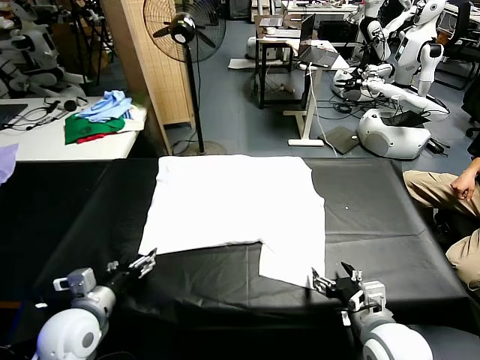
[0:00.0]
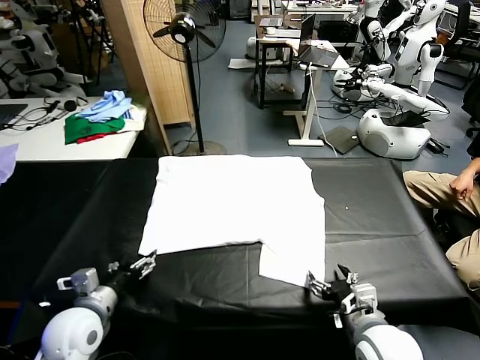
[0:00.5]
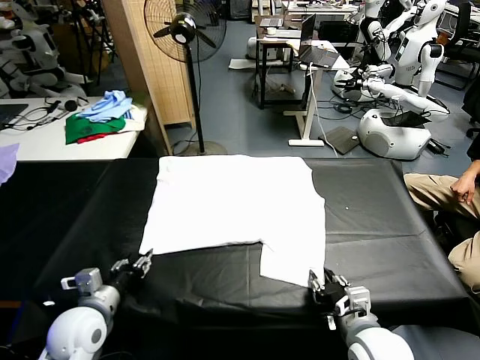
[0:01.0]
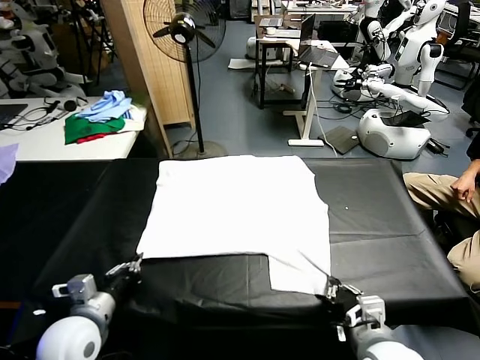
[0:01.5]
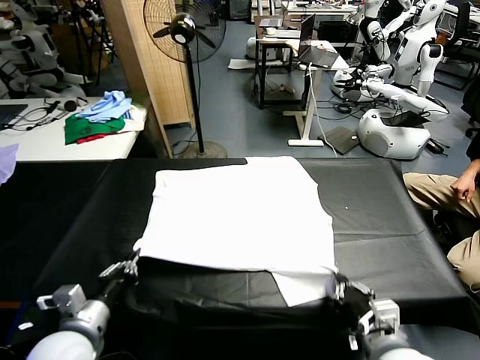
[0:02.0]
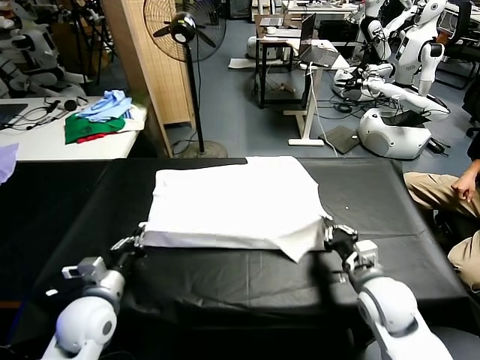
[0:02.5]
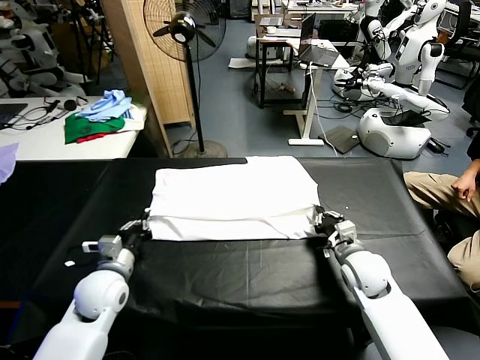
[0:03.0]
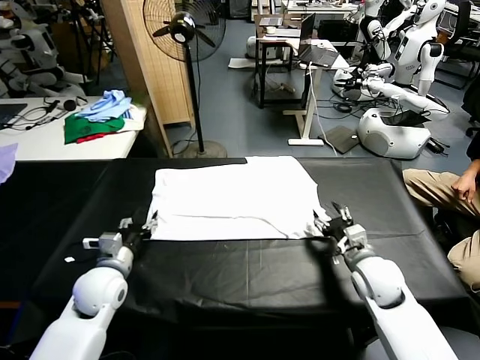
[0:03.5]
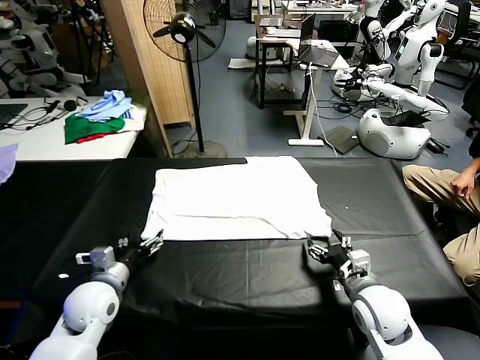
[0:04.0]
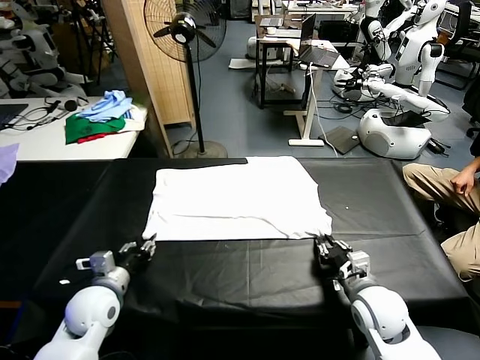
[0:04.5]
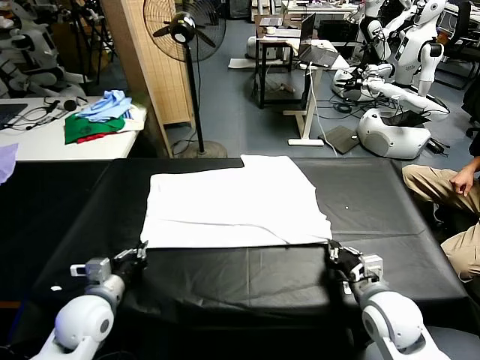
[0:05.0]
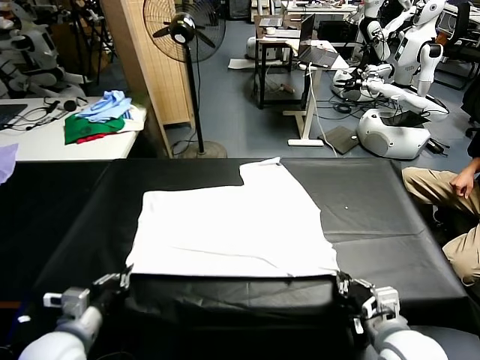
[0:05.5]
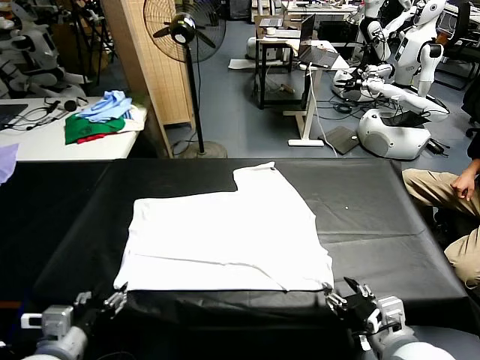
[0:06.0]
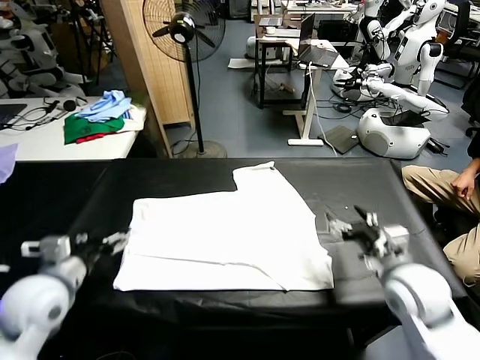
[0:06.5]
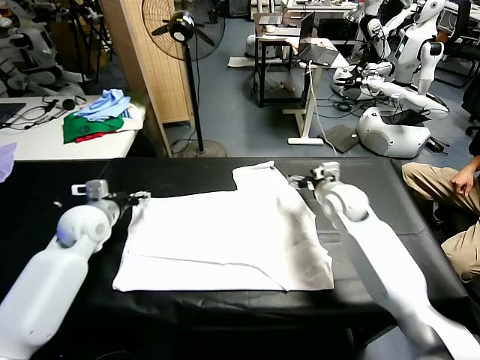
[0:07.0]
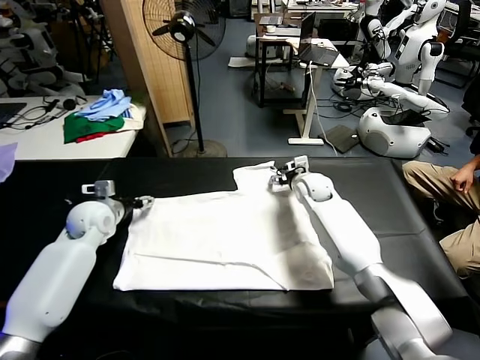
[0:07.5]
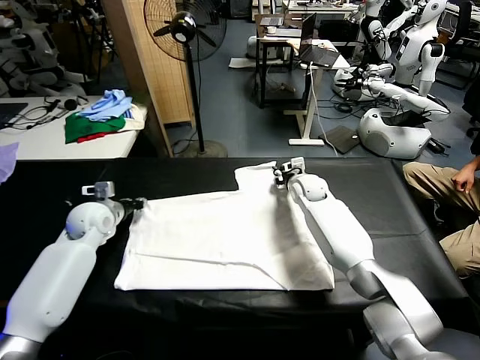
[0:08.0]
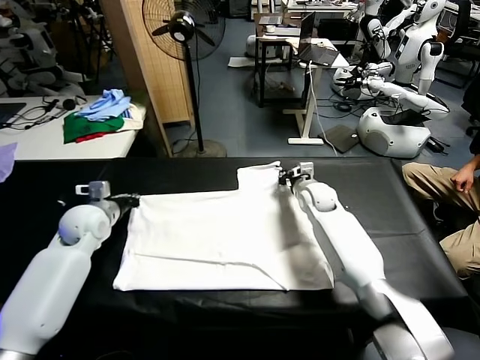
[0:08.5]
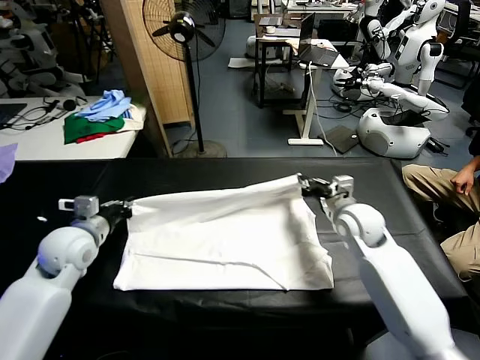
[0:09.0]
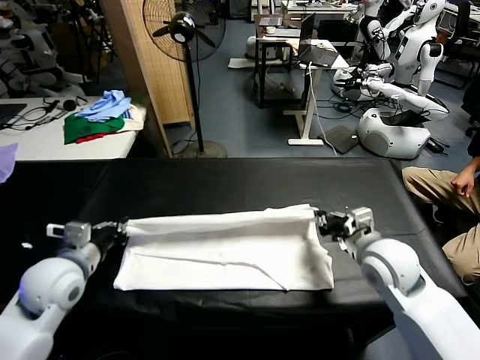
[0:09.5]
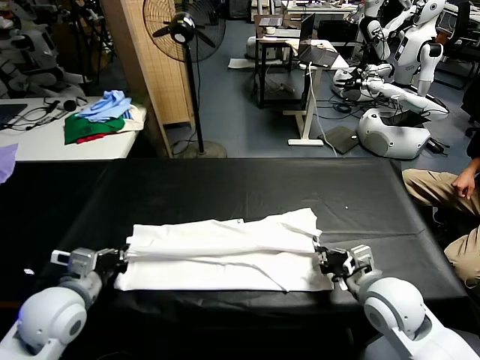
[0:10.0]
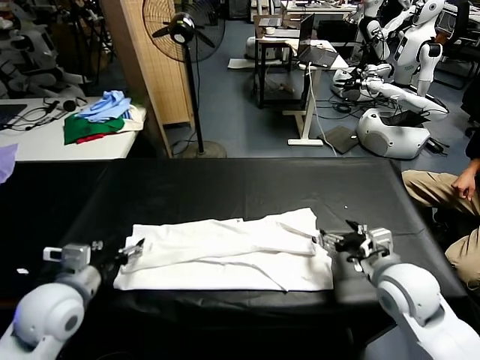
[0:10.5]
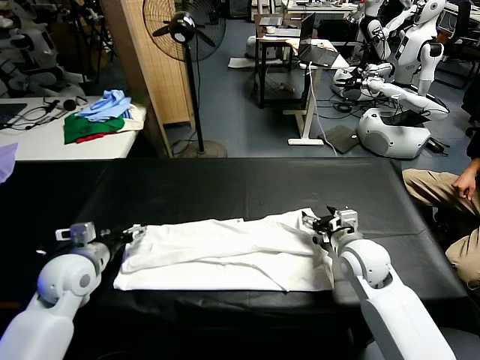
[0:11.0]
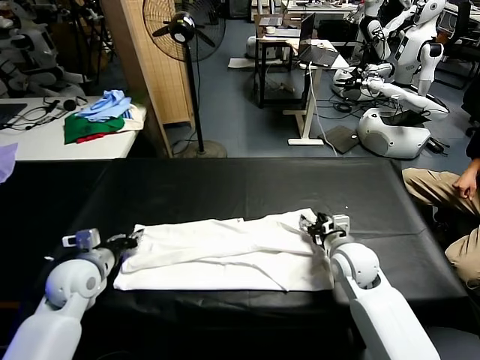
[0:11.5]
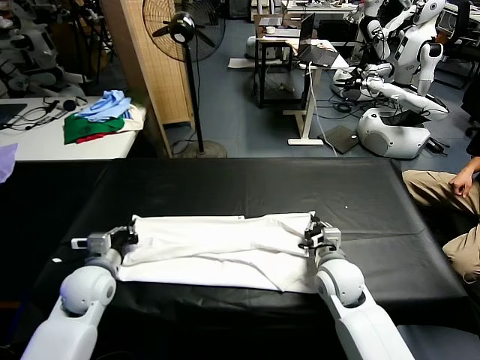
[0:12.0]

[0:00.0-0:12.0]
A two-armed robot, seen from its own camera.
Task of the whole recording: fold and organize the clothes.
Step, 0:00.0 to 0:01.0: use both grippers simultaneously to clamp the lower edge of the clothing fabric.
Step, 0:01.5 to 0:03.0: use both grippers to drag the lower edge of the fabric forward and fold it over the upper edge.
Step, 0:04.0 to 0:06.0: Drag the clothes downward with both gripper.
Step, 0:06.5 to 0:08.0: use both grippers simultaneously to clamp the upper edge of the clothing fabric.
Step, 0:08.5 to 0:10.0: use both grippers to drag the upper edge of the fabric backward and fold it over the lower edge.
0:02.0 to 0:04.0: The left gripper shifts roughly 10 cm forward and downward, and opens its fingers. Meanwhile the right gripper shifts roughly 5 cm forward, and opens.
0:04.0 to 0:06.0: Both grippers travel together backward and upward, roughly 15 cm. The right gripper closes, then reopens. Meanwhile the left gripper closes, then opens again.
0:06.0 to 0:08.0: The two grippers go some 35 cm forward. The left gripper closes, while the right gripper closes.
0:08.0 to 0:10.0: The grippers both shift backward by approximately 25 cm.
0:10.0 to 0:12.0: The right gripper is displaced downward, forward and to the left by some 15 cm, and opens, then closes again. The left gripper is displaced forward and downward by about 10 cm, and opens and closes again.

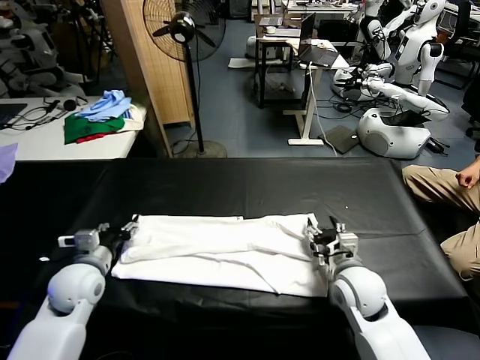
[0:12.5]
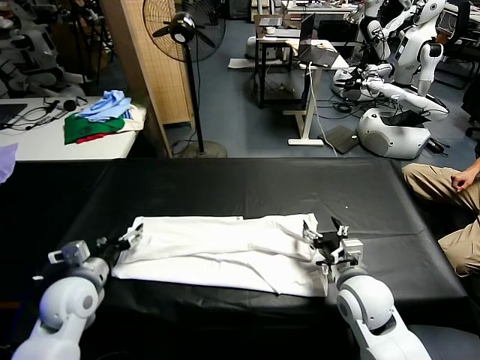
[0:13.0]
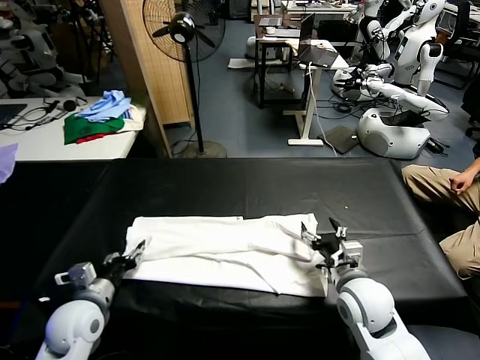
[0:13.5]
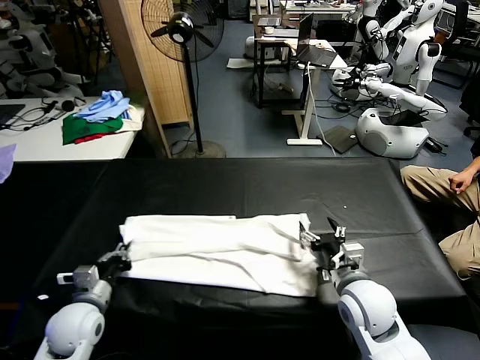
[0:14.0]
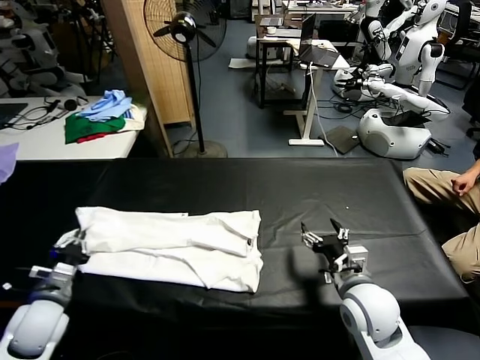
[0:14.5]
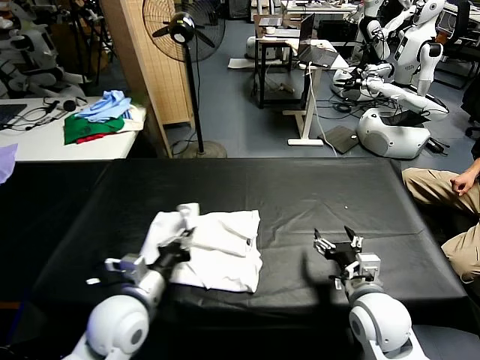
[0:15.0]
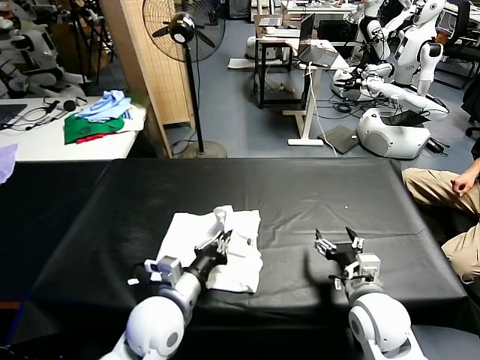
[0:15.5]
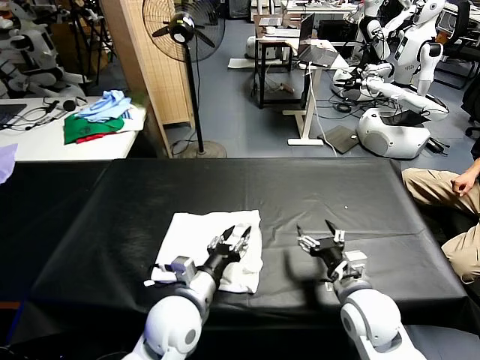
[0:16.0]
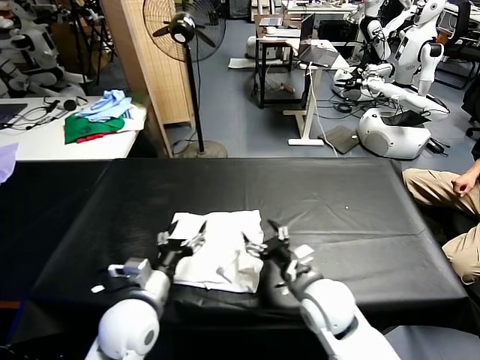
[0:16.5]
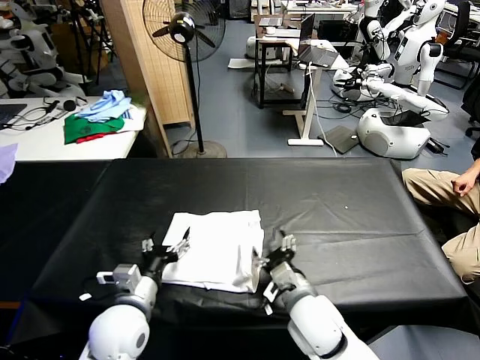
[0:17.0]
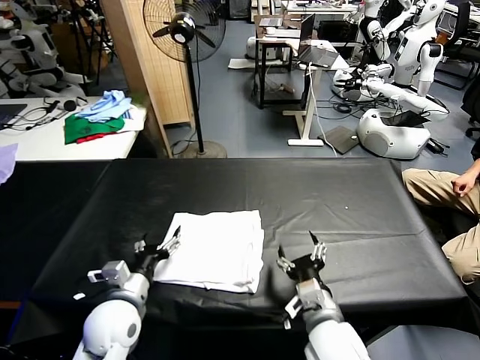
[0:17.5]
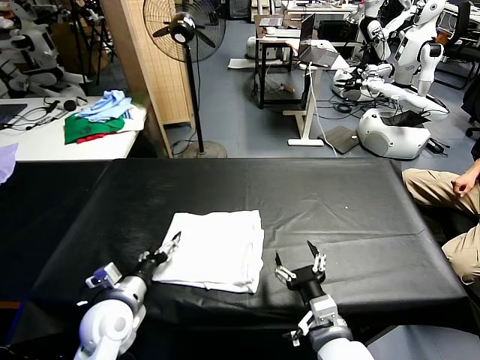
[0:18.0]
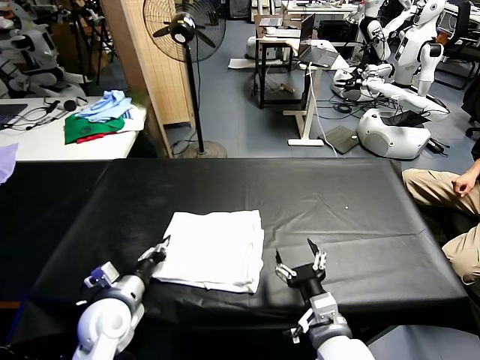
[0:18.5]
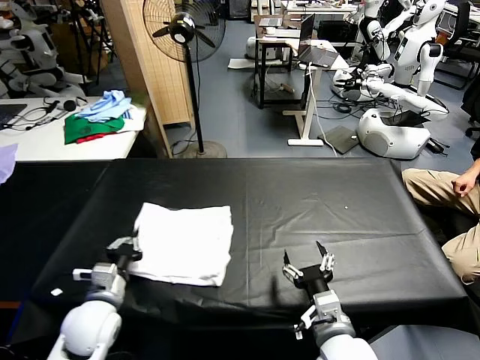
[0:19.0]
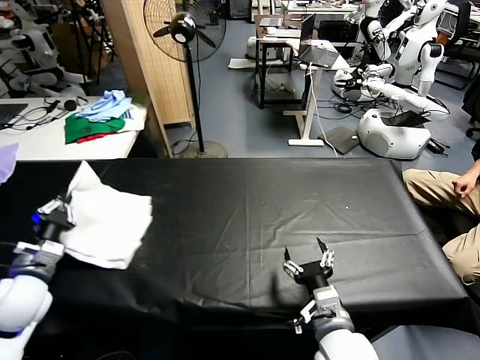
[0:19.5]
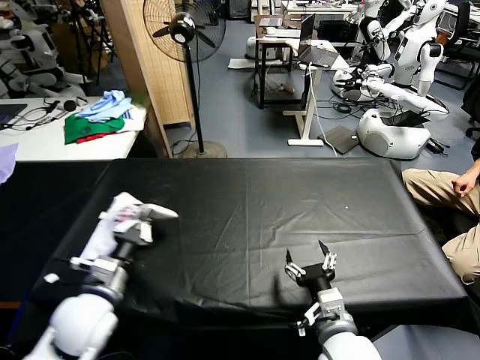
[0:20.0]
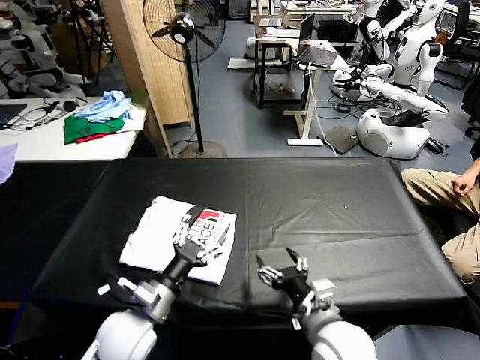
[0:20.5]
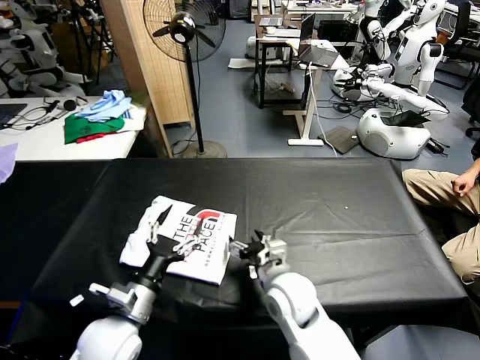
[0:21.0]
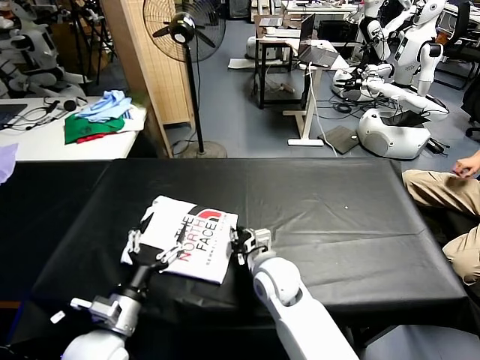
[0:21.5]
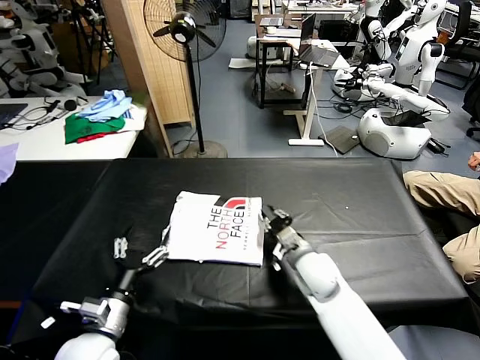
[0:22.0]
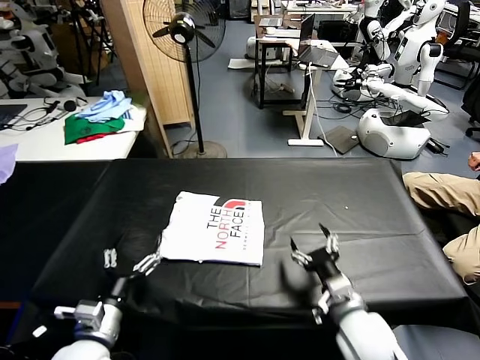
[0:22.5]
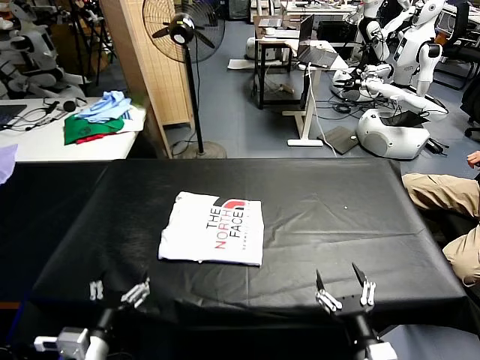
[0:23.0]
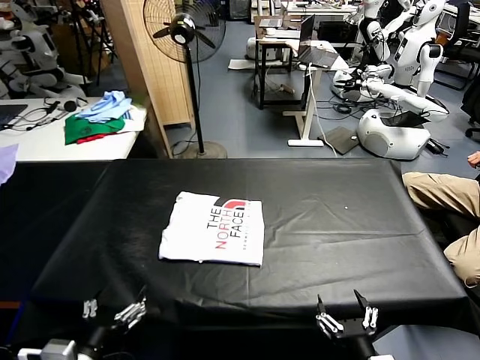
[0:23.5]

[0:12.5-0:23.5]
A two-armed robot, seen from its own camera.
Task of the whole recording: fold and organize the clothes.
Step, 0:14.0 to 0:16.0: use the left gripper to drag the left edge of the fabric to the left and folds it over the right edge.
Step, 0:16.5 to 0:20.5: Flip the folded clothes over with left gripper.
Step, 0:21.0 to 0:22.0: Drag the clothes to the center of the table.
0:12.5 to 0:14.5: The left gripper goes about 10 cm backward and to the left, and closes.
0:14.5 to 0:16.0: The left gripper heads to the right, covering some 25 cm, and opens up.
0:16.0 to 0:18.0: The left gripper goes approximately 15 cm to the left, and opens up; the right gripper shifts some 10 cm backward and to the left.
0:18.0 to 0:20.0: The left gripper goes about 5 cm upward, moves about 15 cm to the left and comes back, and closes.
0:20.0 to 0:21.5: The right gripper shifts approximately 20 cm forward and to the left, and closes, while the left gripper heads backward, covering about 5 cm, and opens.
0:21.5 to 0:23.5: The right gripper moves backward and to the right, roughly 30 cm, and opens up. The left gripper shifts approximately 10 cm backward.

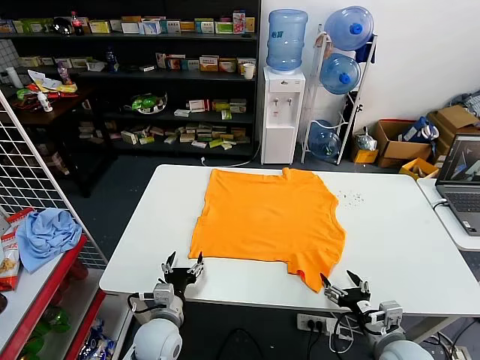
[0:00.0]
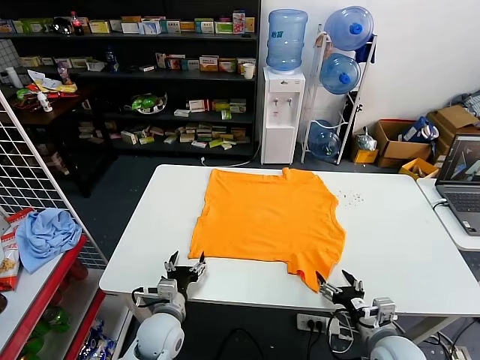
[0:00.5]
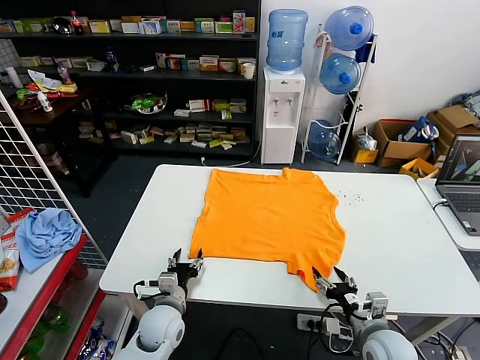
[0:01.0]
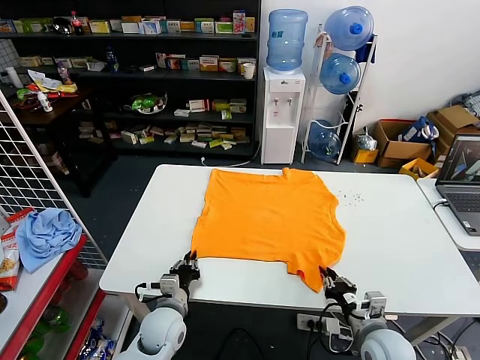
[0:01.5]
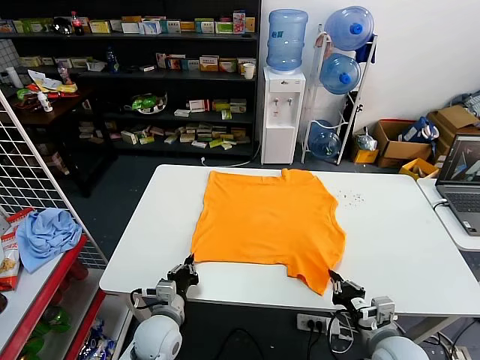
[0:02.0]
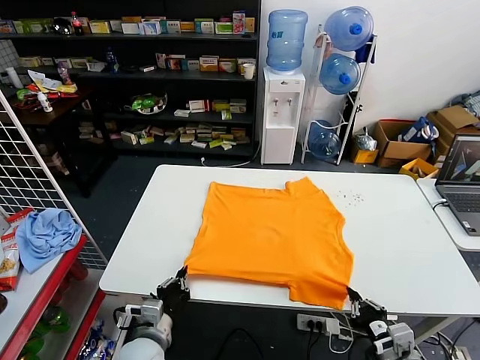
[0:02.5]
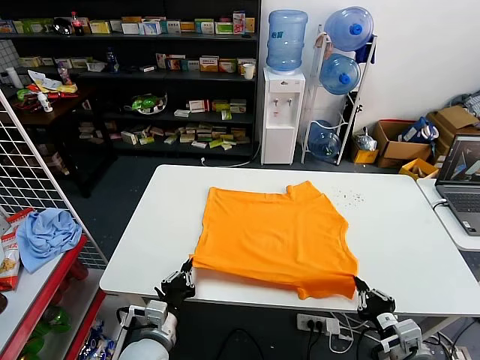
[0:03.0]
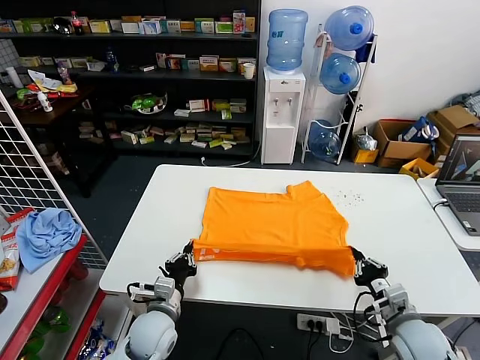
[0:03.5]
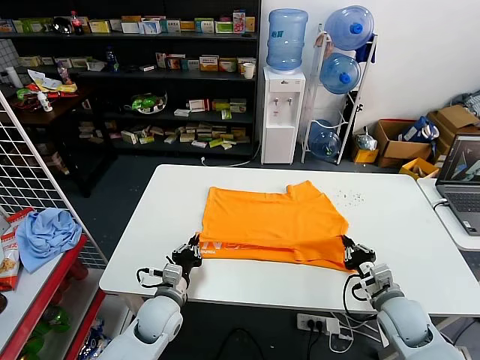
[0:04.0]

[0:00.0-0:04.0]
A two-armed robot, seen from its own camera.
Task of the whole recording: fold and organize the clothes.
Step, 0:00.0 to 0:01.5: use both grippers simultaneously to clamp the lower edge of the clothing fabric.
0:02.0 to 0:04.0: The right gripper travels forward by some 10 cm.
